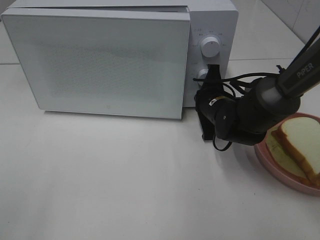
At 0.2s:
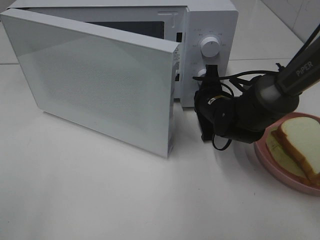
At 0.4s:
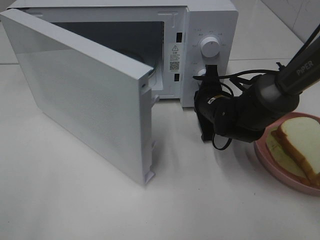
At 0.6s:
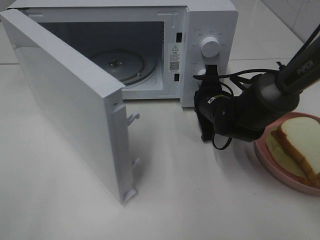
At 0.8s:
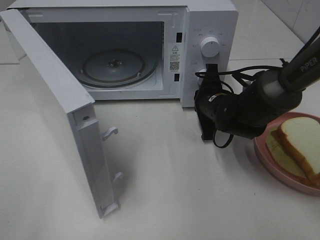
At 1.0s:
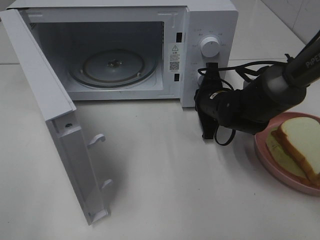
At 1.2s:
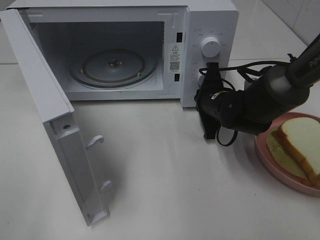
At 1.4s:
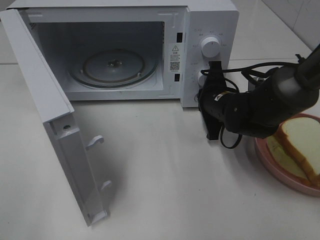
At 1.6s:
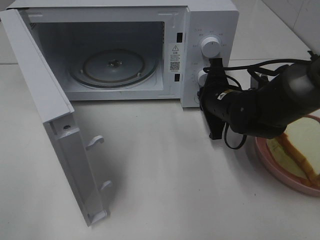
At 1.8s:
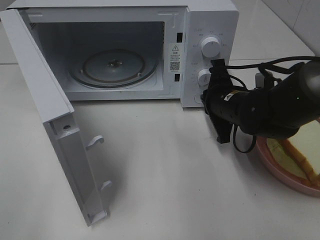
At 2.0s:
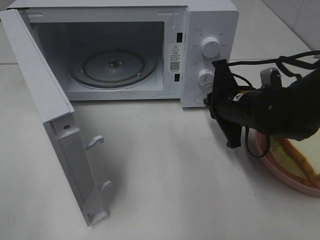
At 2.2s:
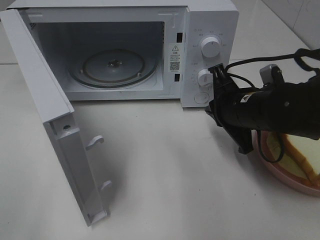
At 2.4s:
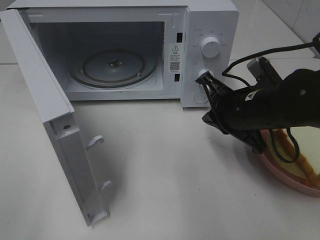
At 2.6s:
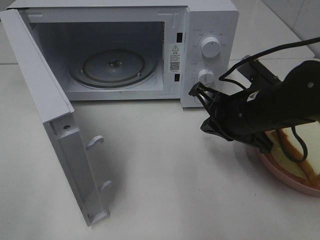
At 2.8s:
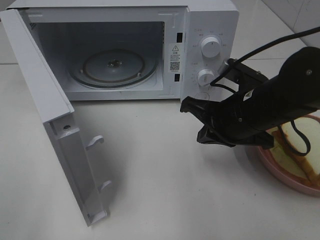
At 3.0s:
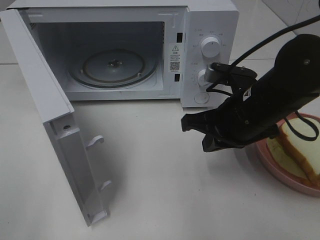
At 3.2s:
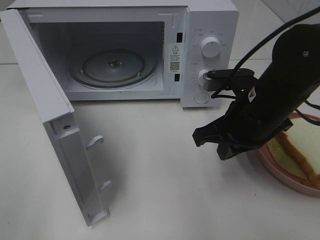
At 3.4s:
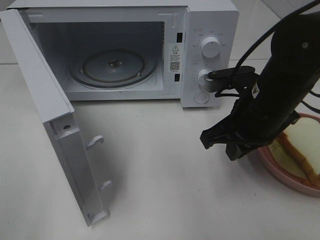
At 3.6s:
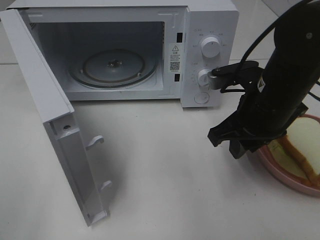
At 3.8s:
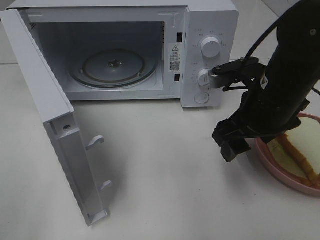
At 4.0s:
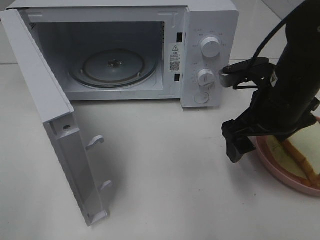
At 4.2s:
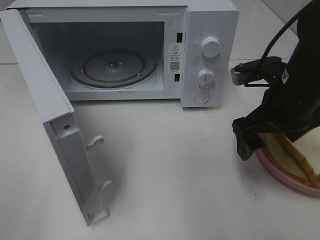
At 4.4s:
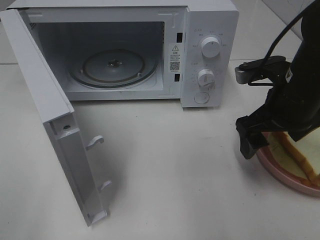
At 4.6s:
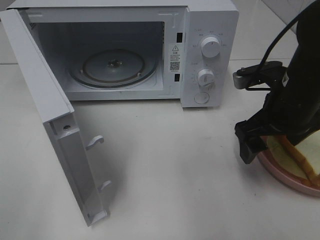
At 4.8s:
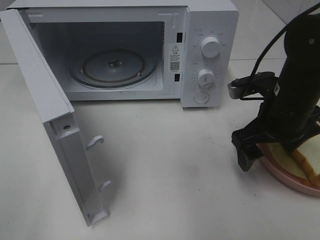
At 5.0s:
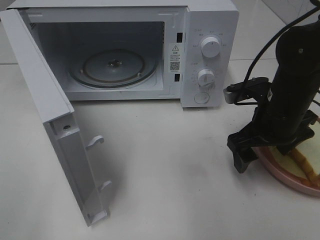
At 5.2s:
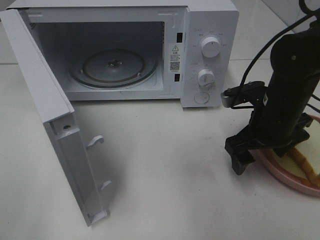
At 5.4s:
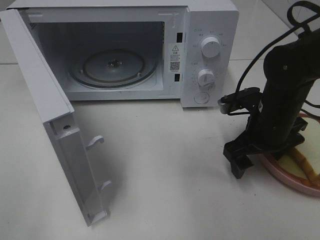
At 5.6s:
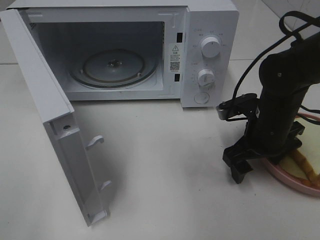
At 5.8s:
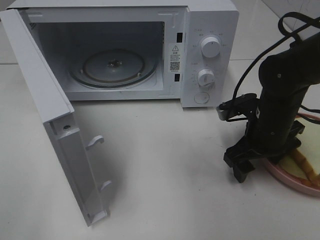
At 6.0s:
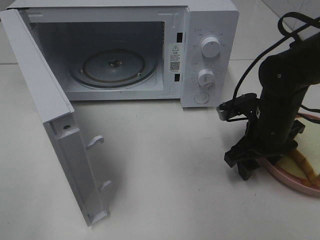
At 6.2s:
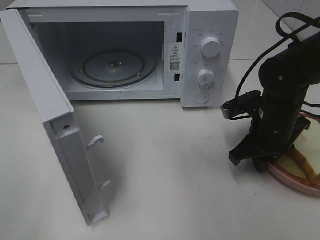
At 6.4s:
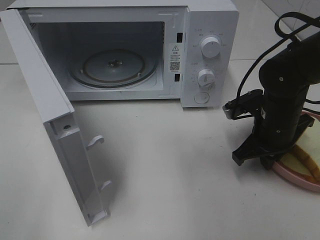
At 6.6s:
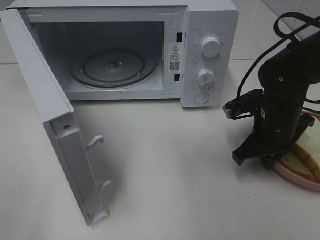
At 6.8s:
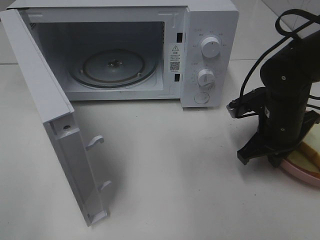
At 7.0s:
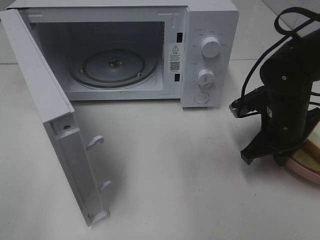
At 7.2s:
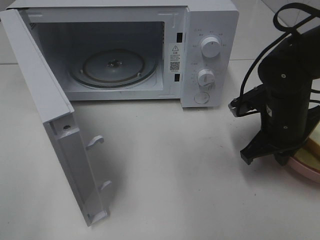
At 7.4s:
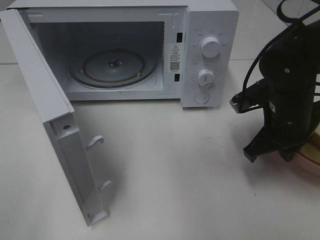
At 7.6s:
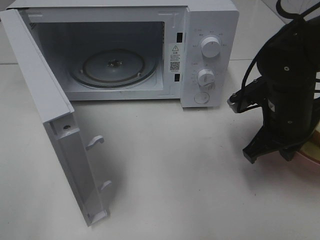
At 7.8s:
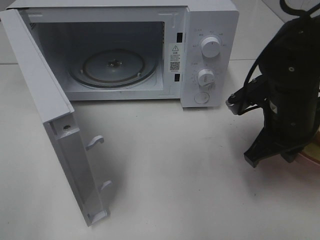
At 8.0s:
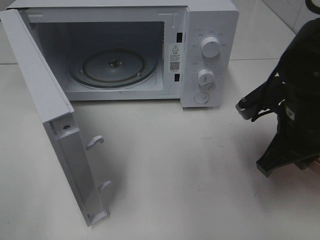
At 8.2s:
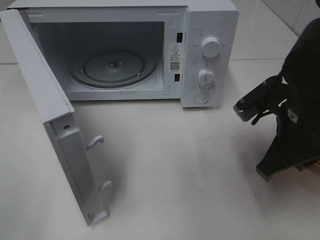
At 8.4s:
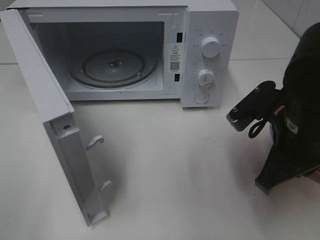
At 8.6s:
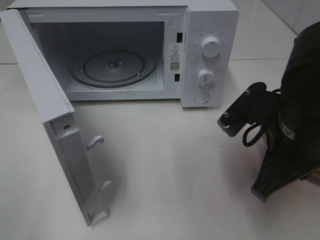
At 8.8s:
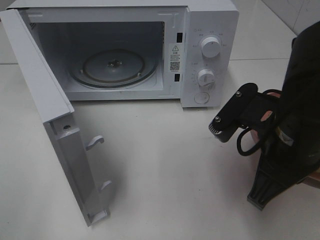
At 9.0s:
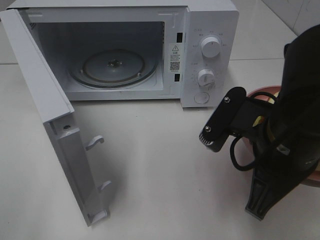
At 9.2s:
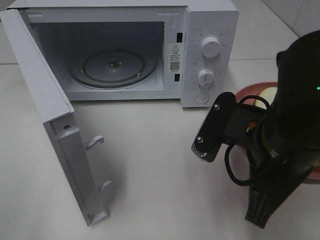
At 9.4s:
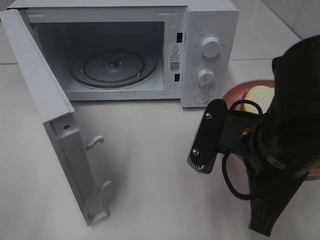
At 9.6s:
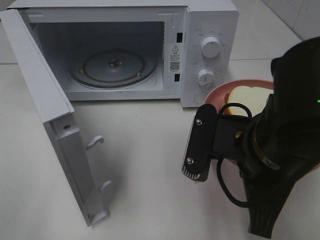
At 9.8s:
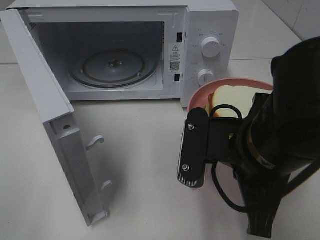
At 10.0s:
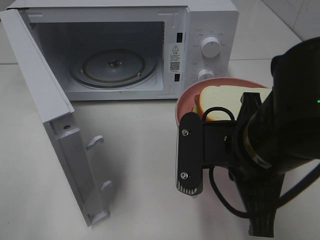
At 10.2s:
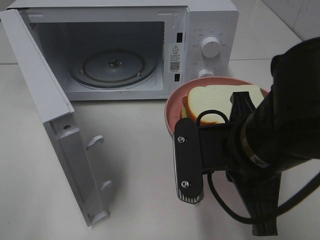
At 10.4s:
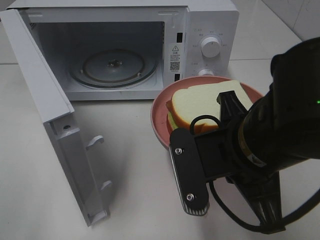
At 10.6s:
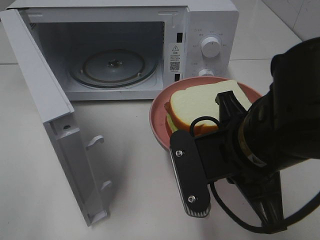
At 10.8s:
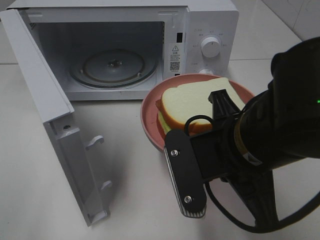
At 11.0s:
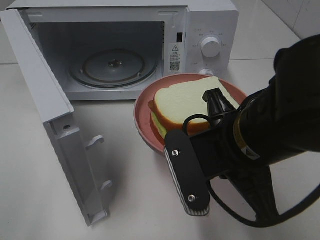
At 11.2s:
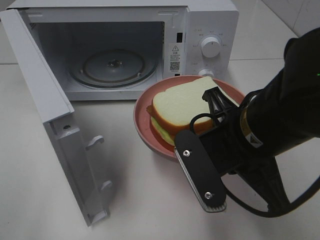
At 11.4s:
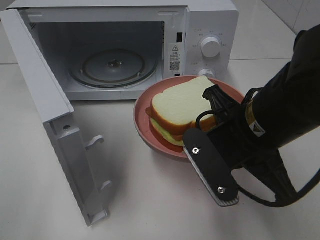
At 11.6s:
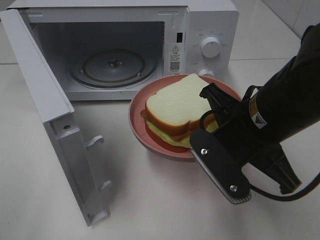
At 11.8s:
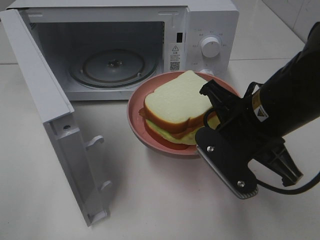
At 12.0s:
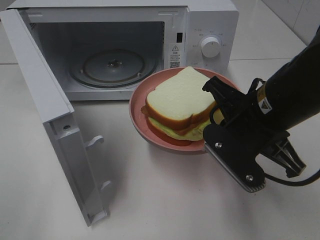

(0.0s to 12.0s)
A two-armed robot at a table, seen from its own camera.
Task of the whole recording: Heat Sandwich.
Step, 1.8s - 6.4s: Right hand: grab the plate with the sandwich.
1.6s - 3.0s: The right gripper travels backward and upward by approximately 10 cm.
3.0s - 4.4s: The right gripper travels to the right by approximately 5 cm, and opens up.
4.4s - 6.0s: The right gripper heads downward, covering approximately 10 cm.
6.0s - 7.6s: The right gripper ends up approximately 5 cm from where it was, and closes.
7.6s - 9.0s: The right gripper shifts some 10 cm backward and to the left.
10.4s - 12.0s: The right gripper goes about 5 cm forward.

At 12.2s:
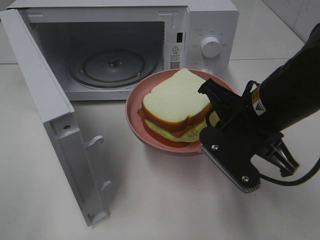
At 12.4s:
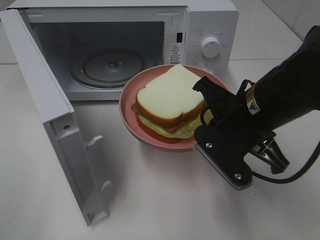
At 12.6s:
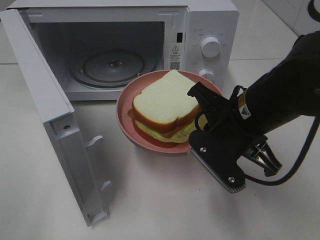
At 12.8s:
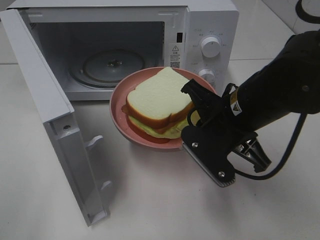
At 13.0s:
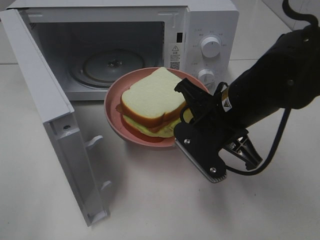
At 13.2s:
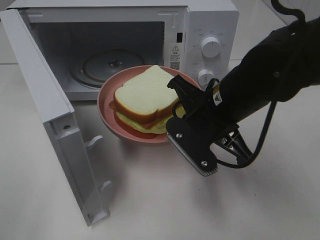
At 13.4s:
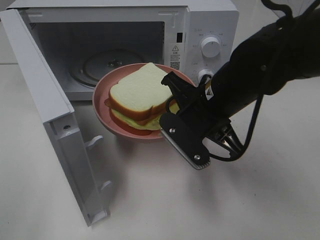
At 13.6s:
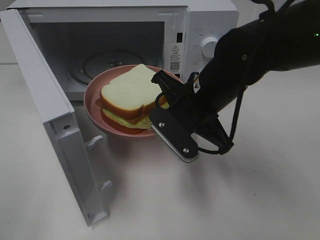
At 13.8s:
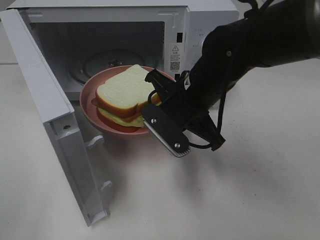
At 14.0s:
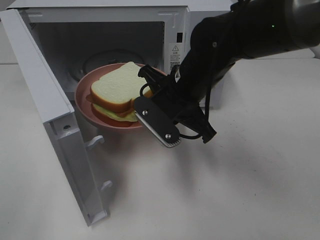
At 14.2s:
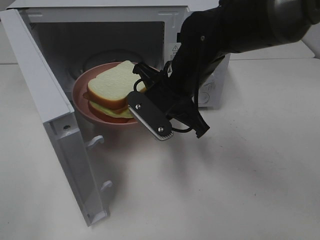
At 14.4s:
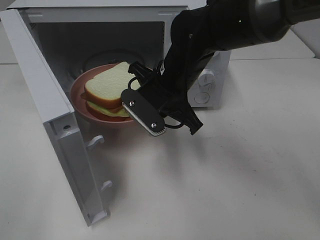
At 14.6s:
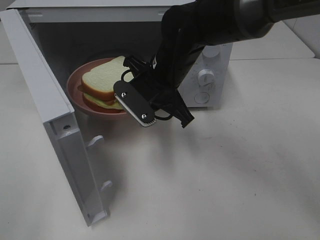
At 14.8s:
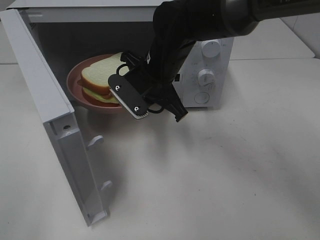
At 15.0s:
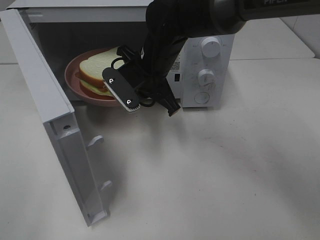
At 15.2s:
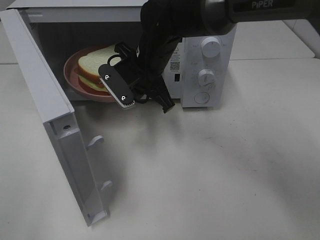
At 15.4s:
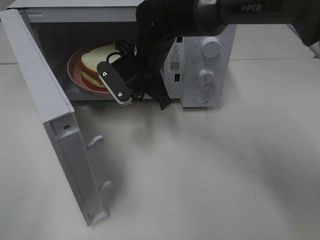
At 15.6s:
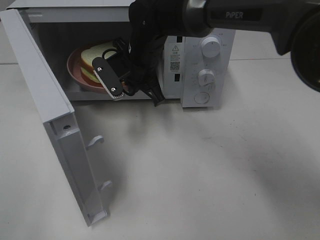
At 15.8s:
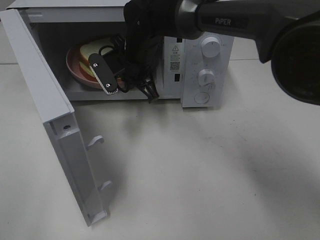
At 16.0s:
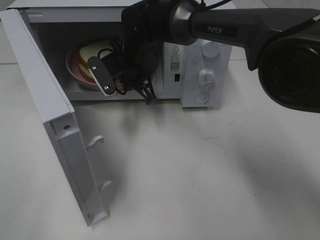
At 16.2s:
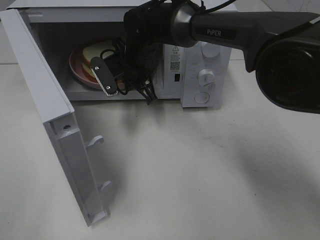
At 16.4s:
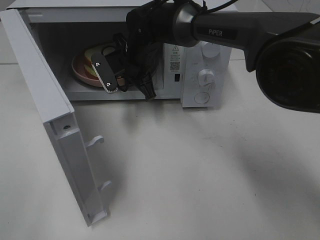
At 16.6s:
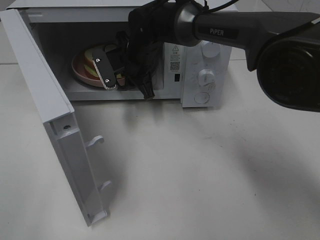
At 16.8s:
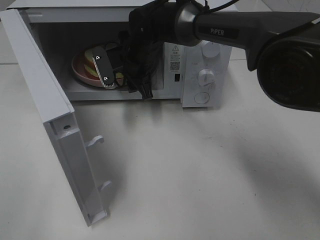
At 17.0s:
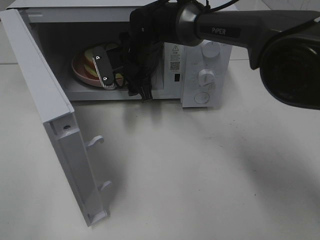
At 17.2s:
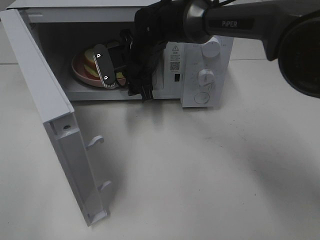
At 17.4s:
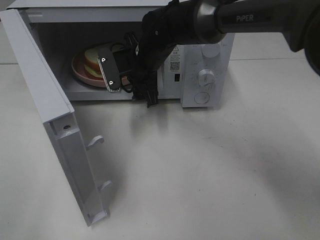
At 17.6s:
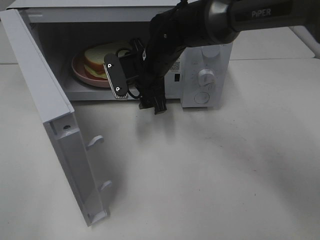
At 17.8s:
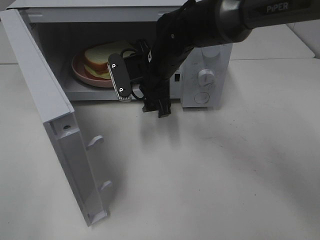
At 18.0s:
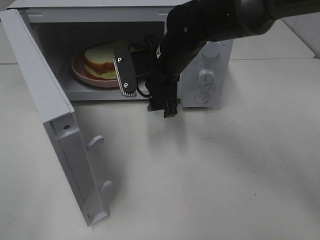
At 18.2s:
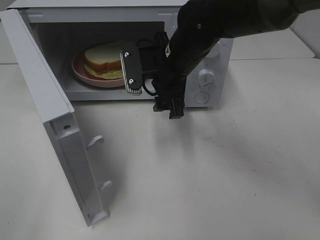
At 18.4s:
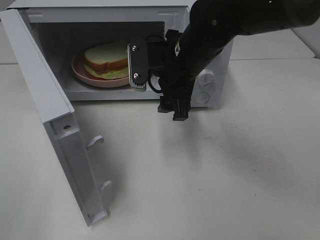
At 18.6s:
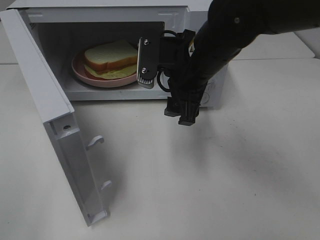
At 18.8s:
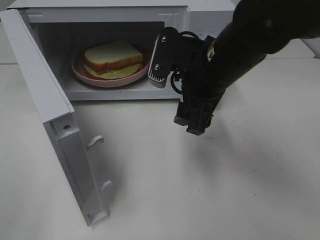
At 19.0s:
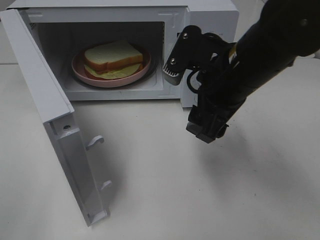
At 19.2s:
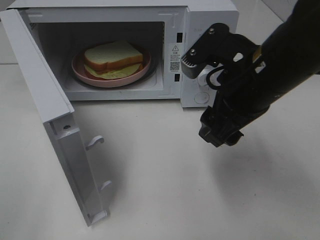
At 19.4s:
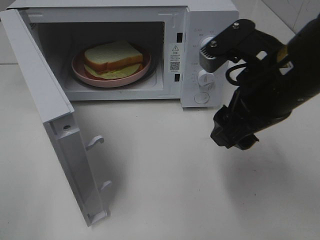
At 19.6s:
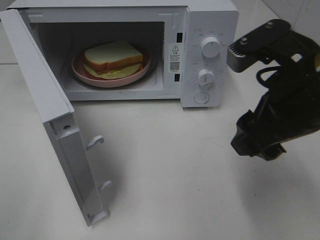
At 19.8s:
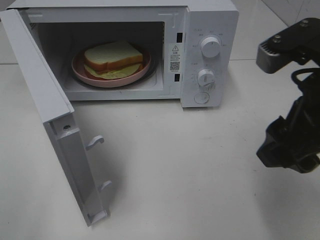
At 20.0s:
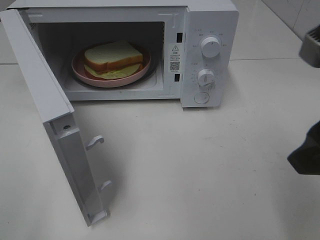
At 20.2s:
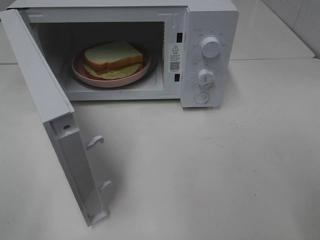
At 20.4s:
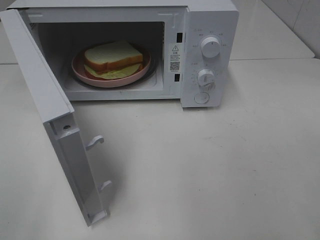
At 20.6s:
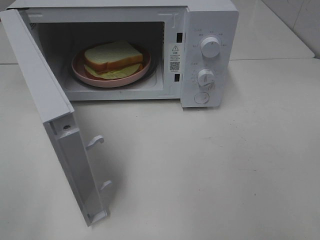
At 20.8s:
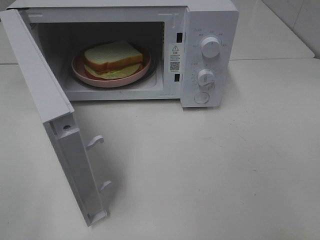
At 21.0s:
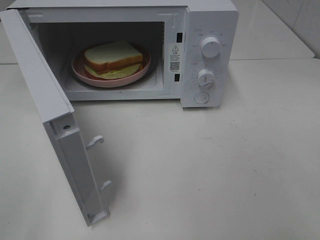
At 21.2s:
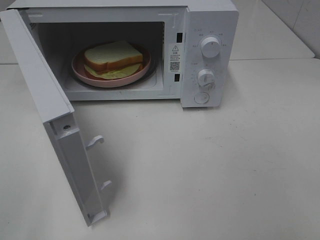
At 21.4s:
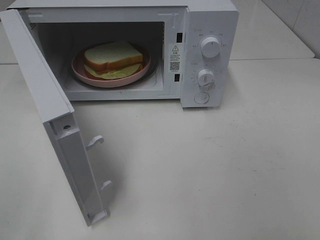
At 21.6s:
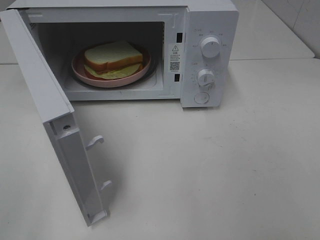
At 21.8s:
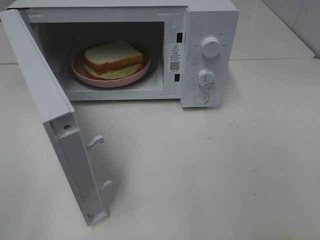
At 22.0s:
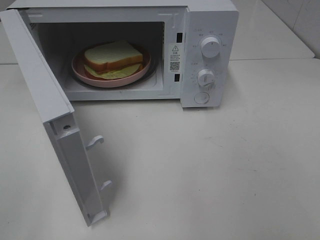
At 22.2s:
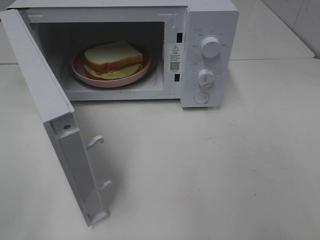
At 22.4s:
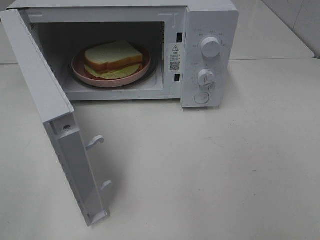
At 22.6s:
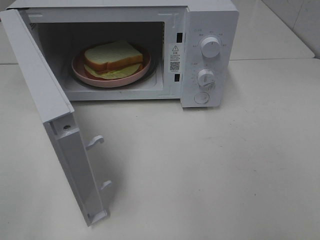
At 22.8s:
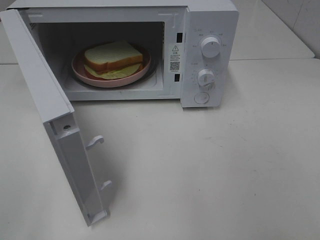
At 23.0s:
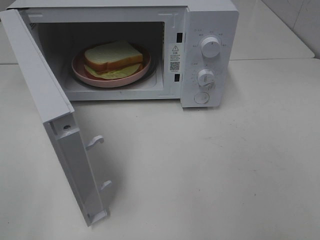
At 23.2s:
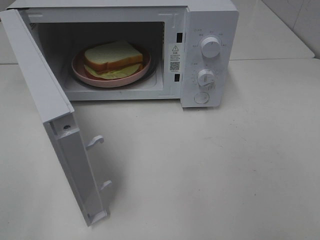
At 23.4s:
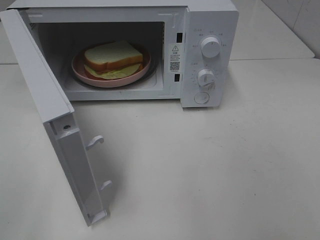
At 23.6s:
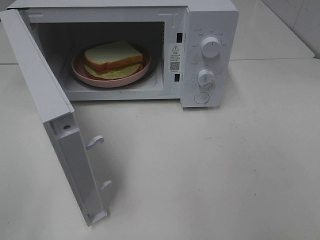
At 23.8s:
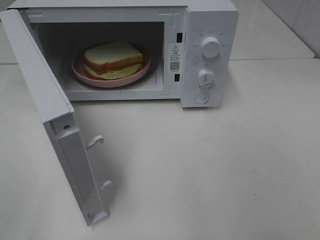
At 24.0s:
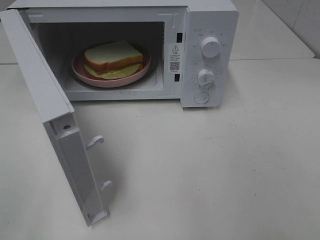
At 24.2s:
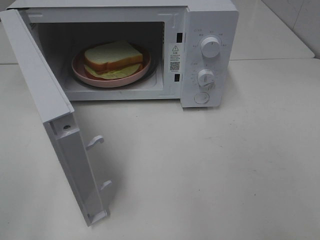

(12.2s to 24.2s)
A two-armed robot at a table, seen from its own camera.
Task of the whole recording: Heat Sandwich.
Step, 12.2s - 18.2s: Right hand: place the plate in the microwave.
12.2s - 13.8s: The right gripper heads forward and to the left, covering about 10 cm.
13.8s - 15.2s: The right gripper shifts about 10 cm forward and to the left.
15.2s - 16.6s: The right gripper travels forward by approximately 5 cm, and opens.
16.6s - 18.2s: The right gripper goes roughly 10 cm backward and to the right, and opens.
18.2s - 19.8s: The right gripper heads backward, to the right and upward, covering roughly 25 cm.
19.8s - 21.2s: The right gripper moves backward and to the right, about 15 cm.
